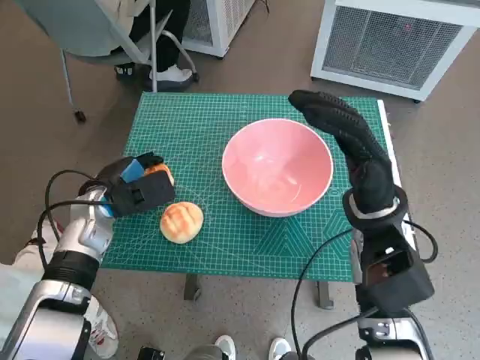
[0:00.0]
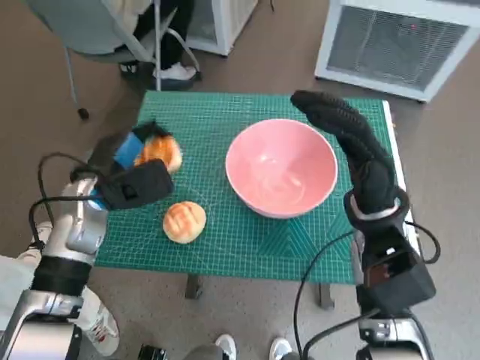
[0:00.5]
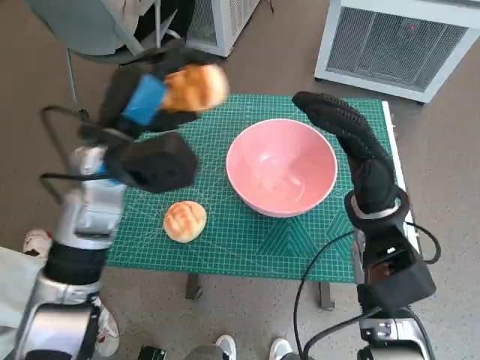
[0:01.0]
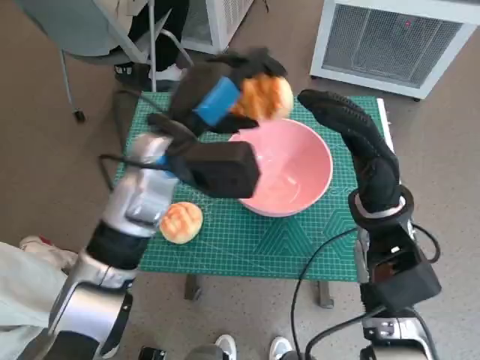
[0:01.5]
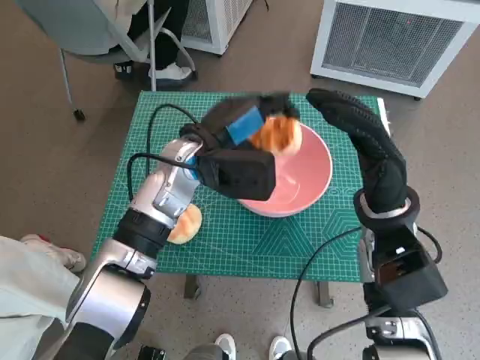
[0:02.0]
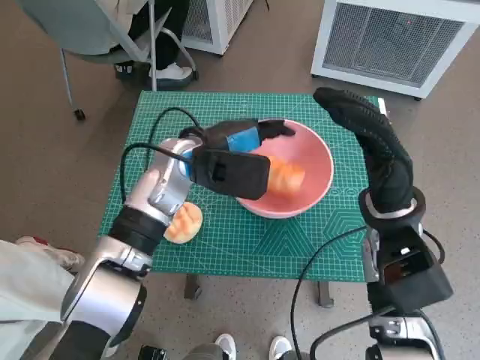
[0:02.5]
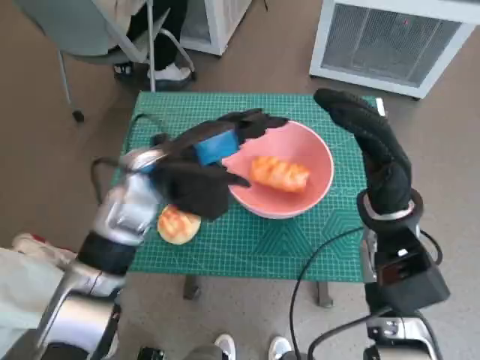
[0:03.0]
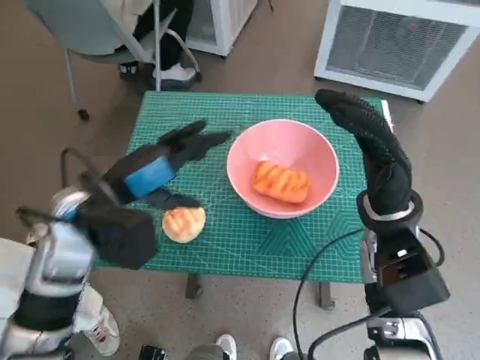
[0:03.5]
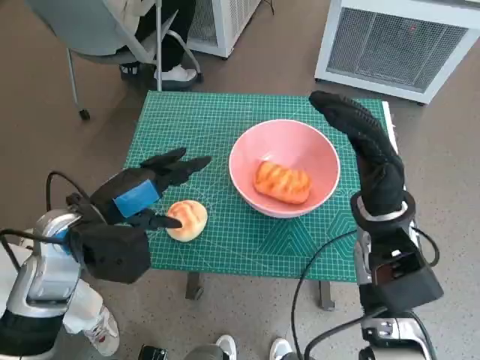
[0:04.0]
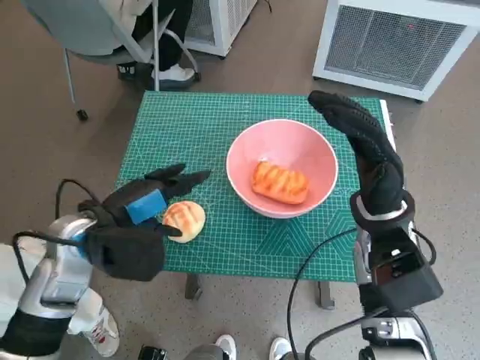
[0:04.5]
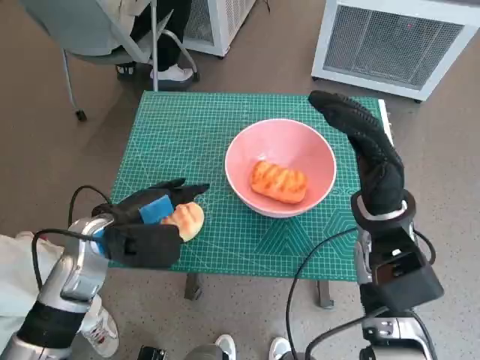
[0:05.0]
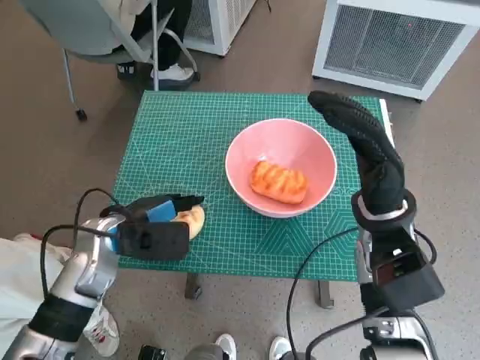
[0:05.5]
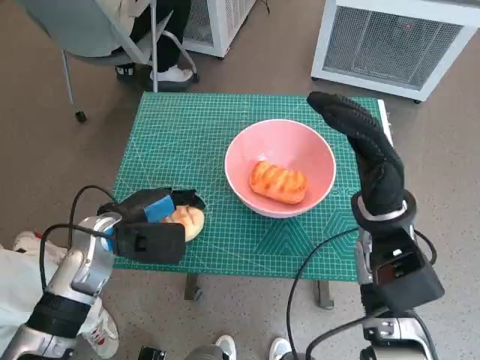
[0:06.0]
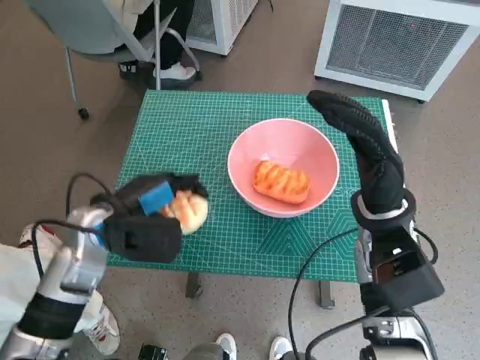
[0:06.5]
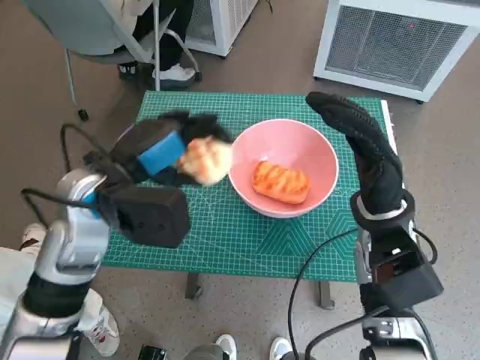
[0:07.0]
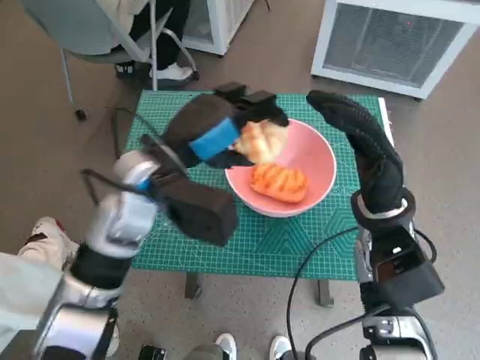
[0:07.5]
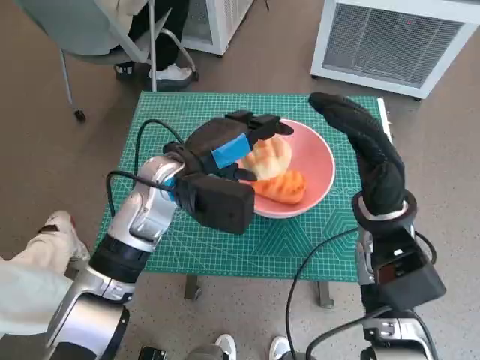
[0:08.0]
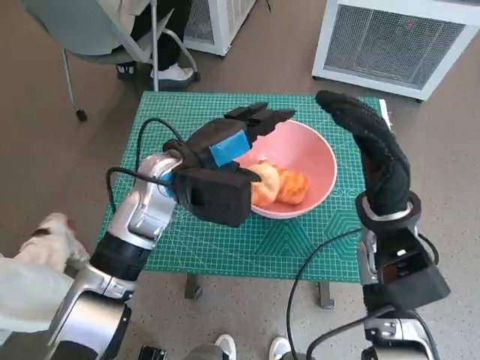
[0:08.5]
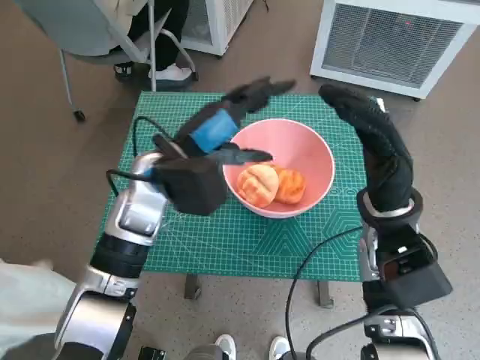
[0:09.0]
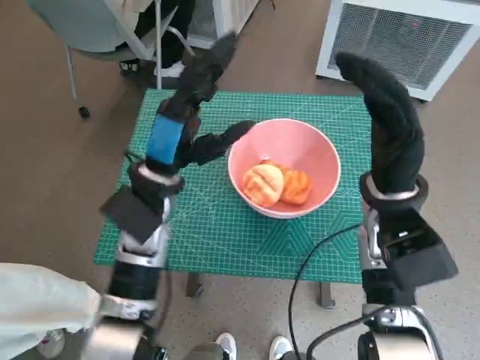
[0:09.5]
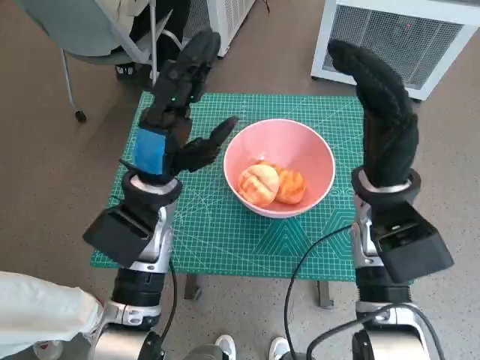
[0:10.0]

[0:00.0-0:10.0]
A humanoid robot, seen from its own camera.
Task of the whole recording: Push the bowl to the center of the table and put the bread into the bowl.
Step, 0:00.5 to 0:02.5: Place the long bread in pink bowl with left hand.
Step, 0:03.5 to 0:05.5: Grasp the round bread with left hand.
Step, 0:06.0 to 0:08.5: Place the round bread in pink bowl with left hand.
0:00.0 to 0:02.0: The left hand heads to the right and upward, covering about 15 cm.
0:02.0 to 0:04.0: The left hand goes approximately 15 cm to the left and backward.
0:04.0 to 0:06.0: The left hand heads downward, covering roughly 5 cm.
0:06.0 to 0:08.0: The left hand heads to the right and upward, covering approximately 10 cm.
